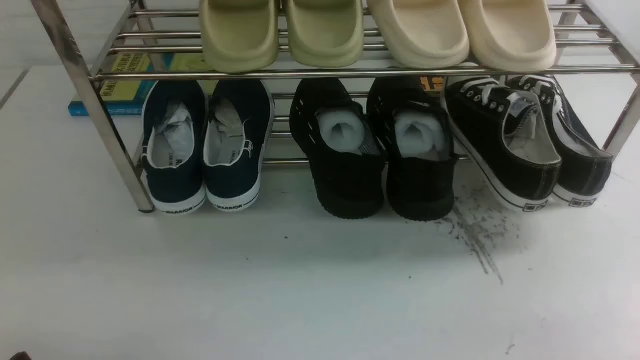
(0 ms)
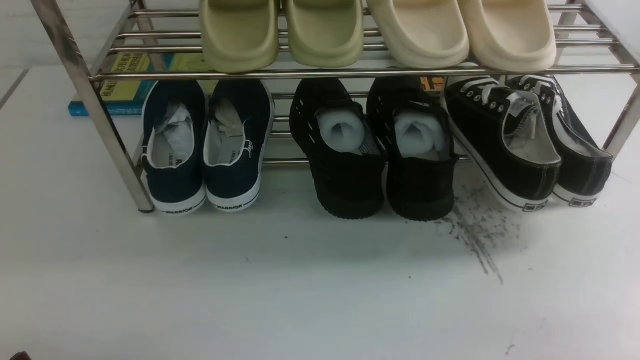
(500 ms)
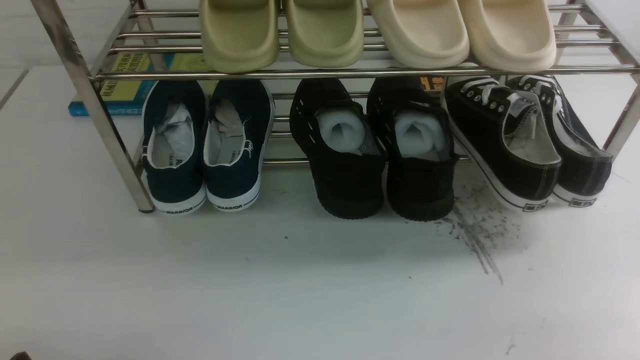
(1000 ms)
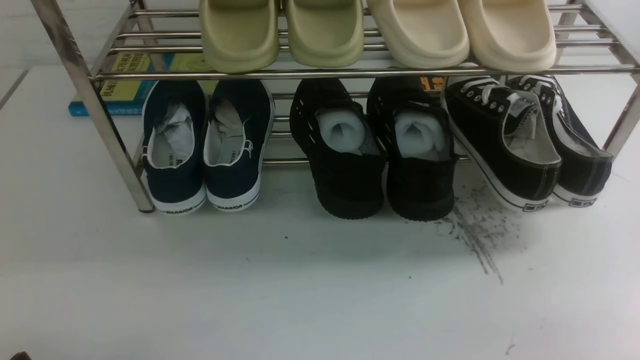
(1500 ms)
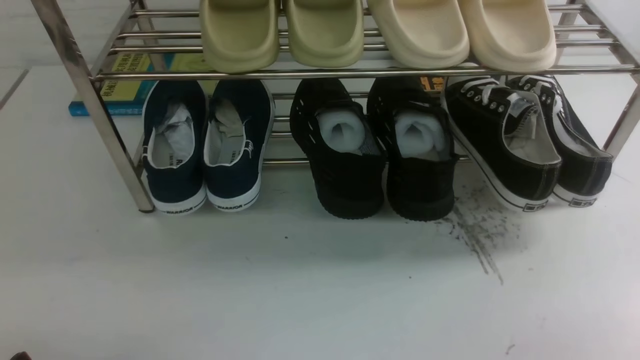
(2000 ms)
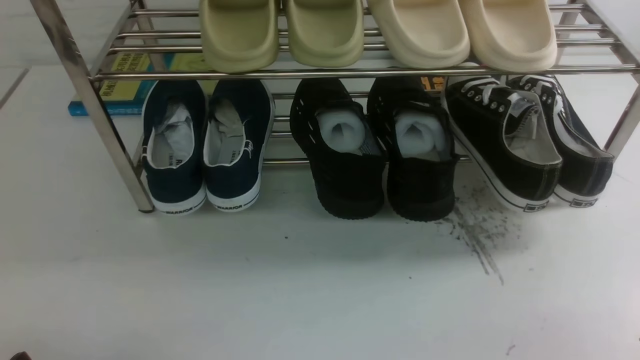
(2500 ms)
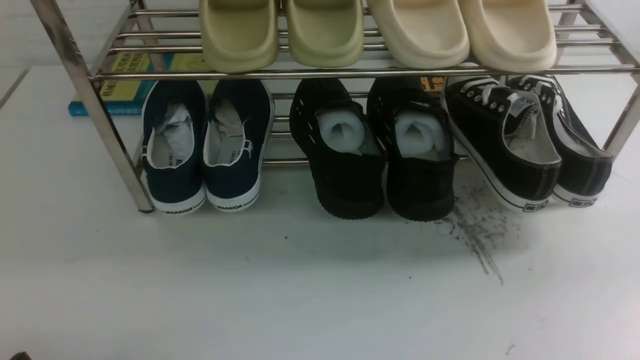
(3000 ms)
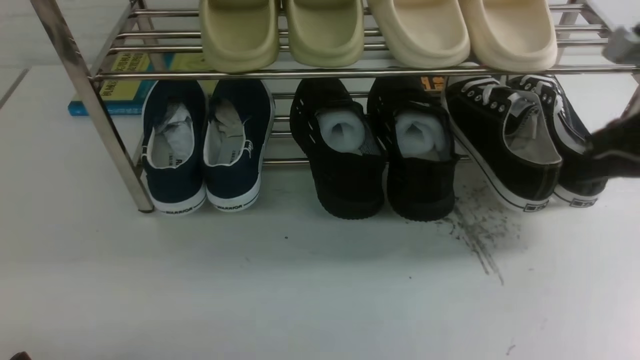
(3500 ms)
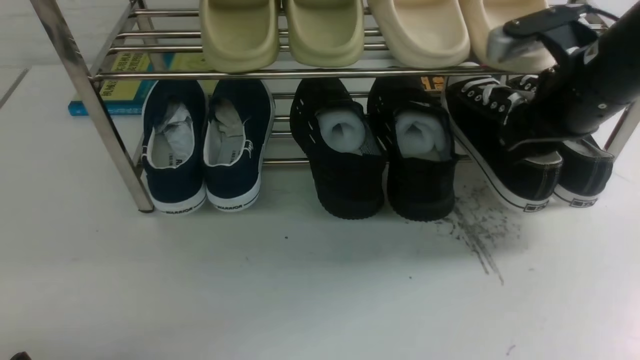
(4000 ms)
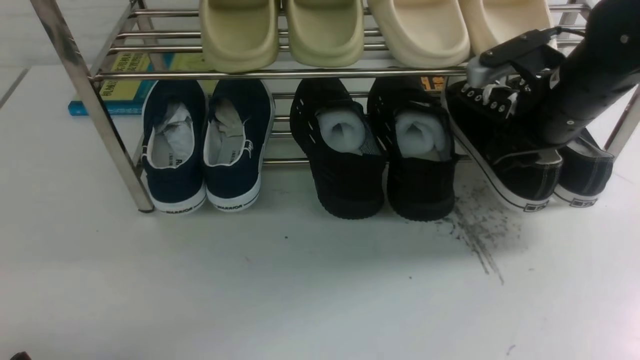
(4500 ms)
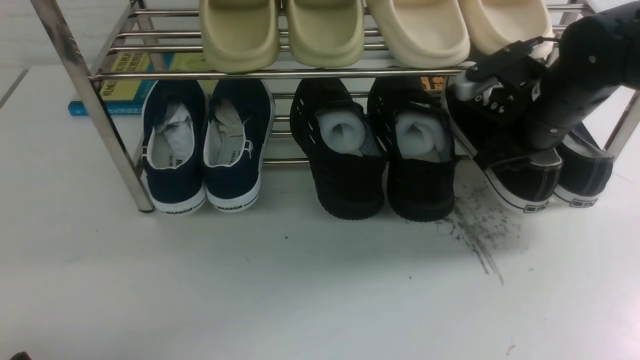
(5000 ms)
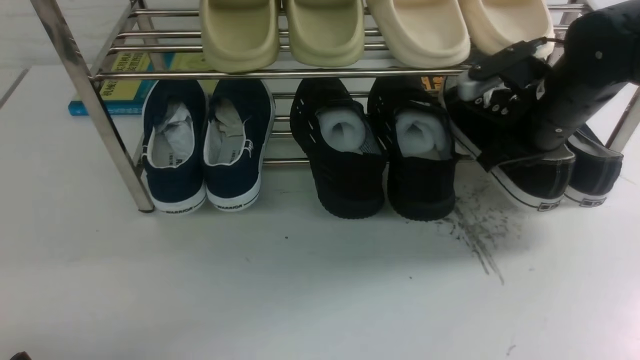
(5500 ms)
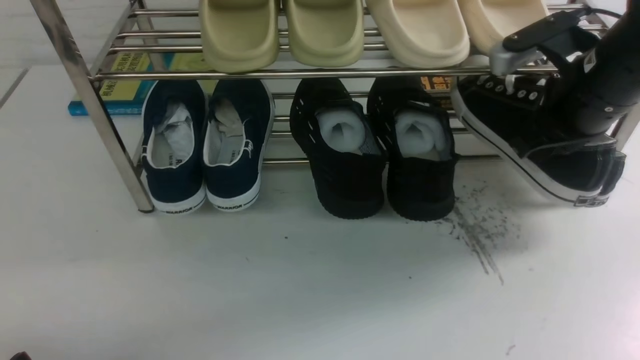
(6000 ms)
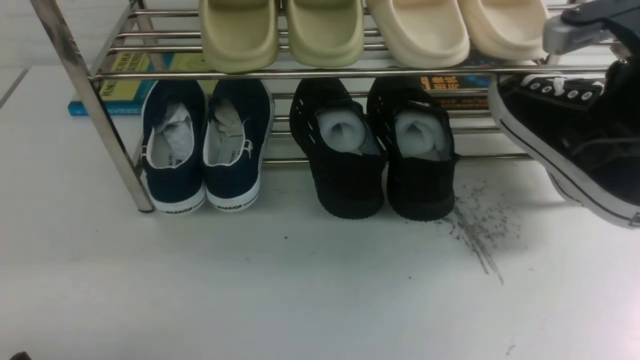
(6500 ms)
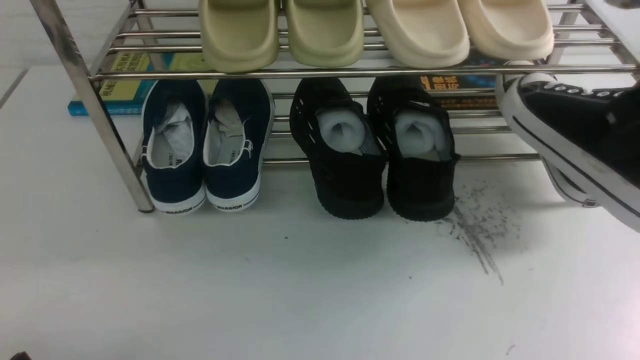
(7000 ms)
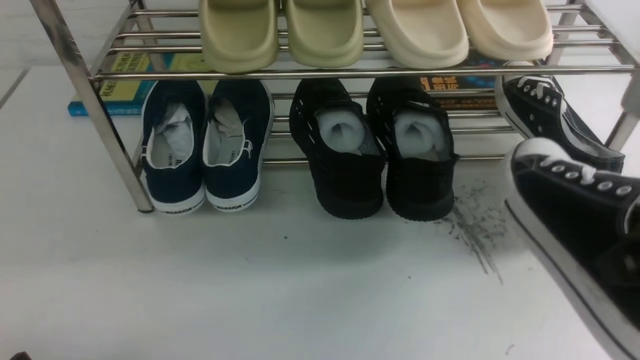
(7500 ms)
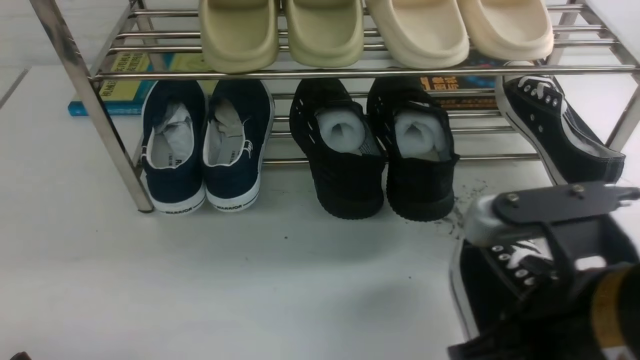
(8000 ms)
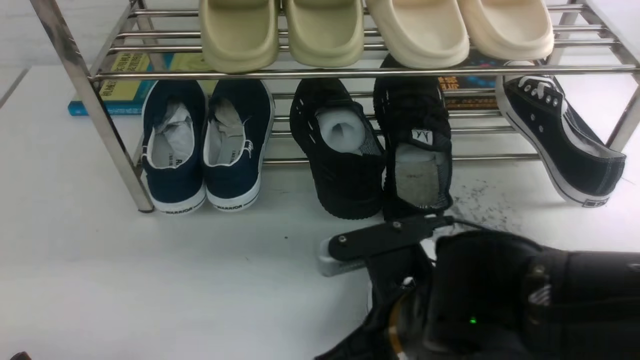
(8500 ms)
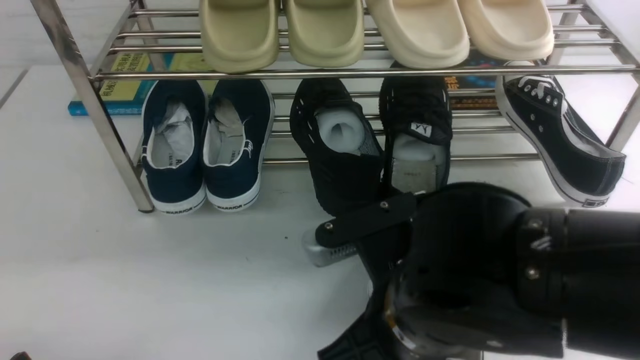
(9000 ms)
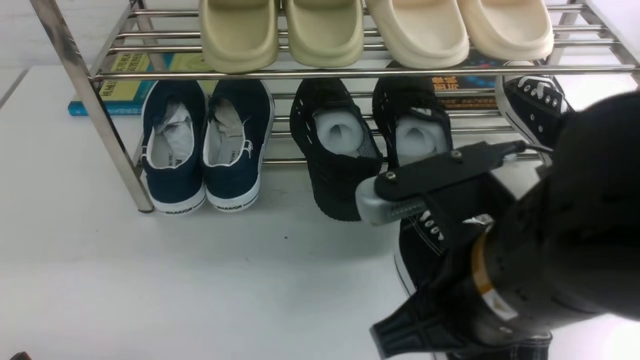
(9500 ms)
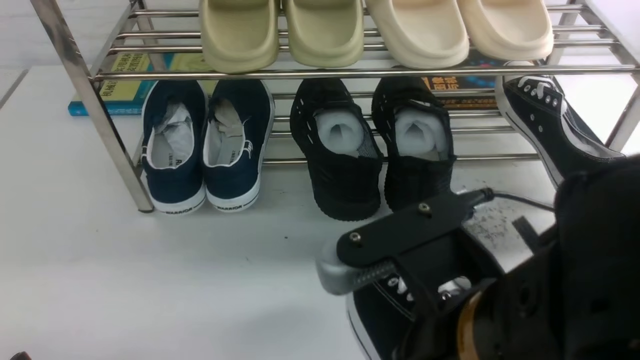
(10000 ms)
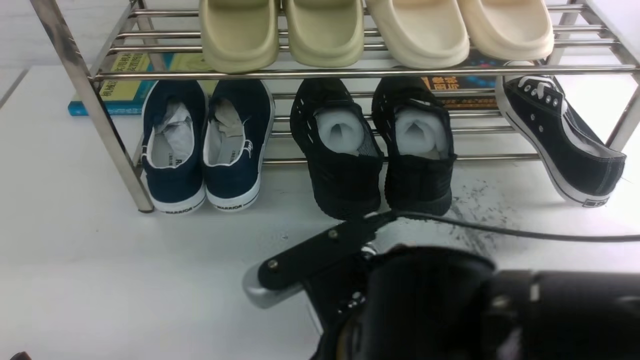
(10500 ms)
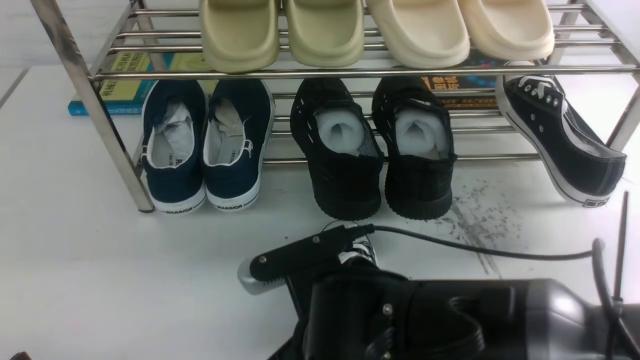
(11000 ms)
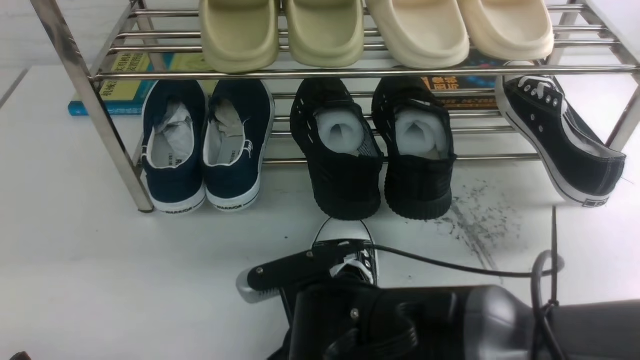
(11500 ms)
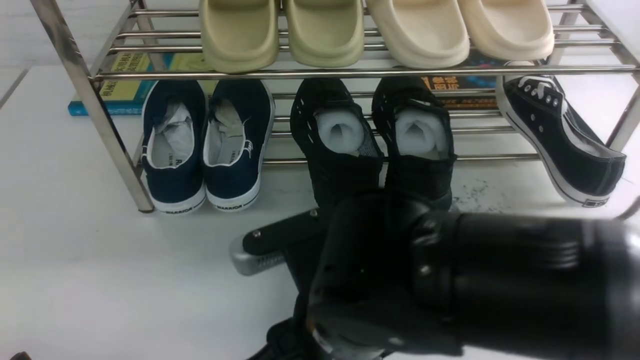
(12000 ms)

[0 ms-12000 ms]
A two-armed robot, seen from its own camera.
Step, 0 ms to 6000 ms: use the right arm to clamp a shoe on the right side of the shoe rack.
2000 ms to 4000 ms: The right gripper travels forward and upward by approximately 30 cm, and closes, then opens again.
4000 ms to 6000 ms: The right gripper closes up.
6000 ms to 8000 ms: The right gripper goes approximately 25 cm backward and to the left.
8000 ms to 10000 ms: The right gripper heads to the left, covering approximately 5 cm.
10000 ms to 12000 ms: The right gripper goes about 10 cm to the left and downward, and opens up.

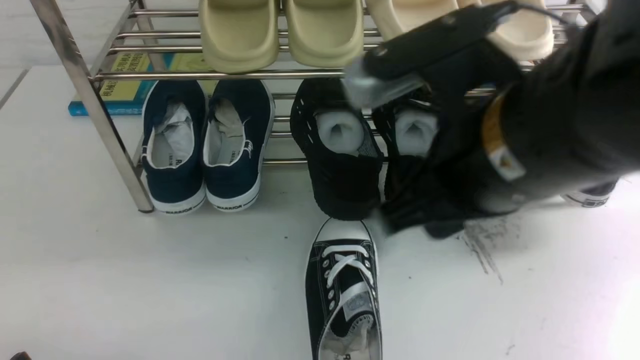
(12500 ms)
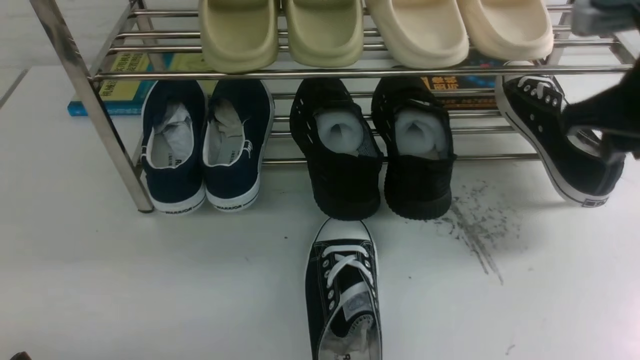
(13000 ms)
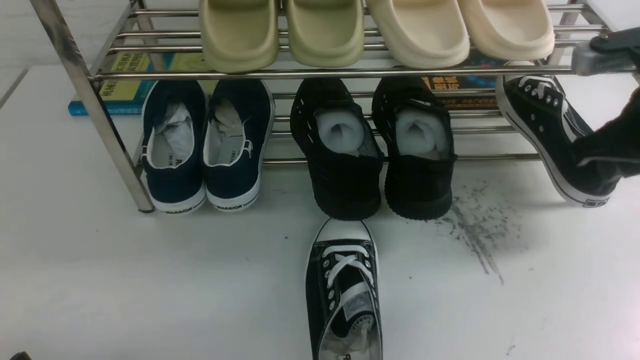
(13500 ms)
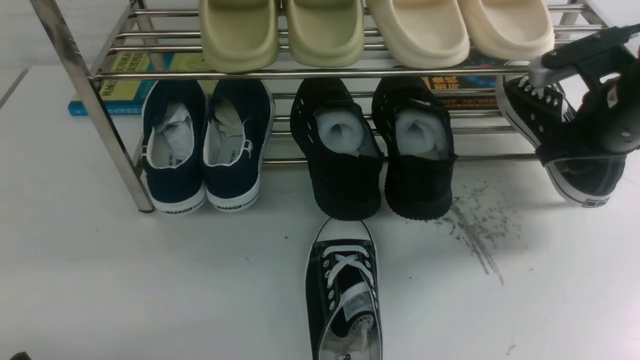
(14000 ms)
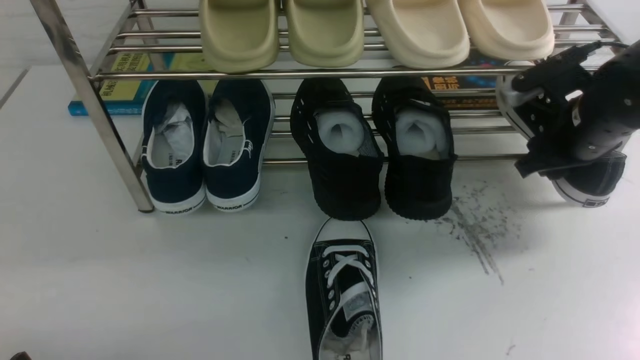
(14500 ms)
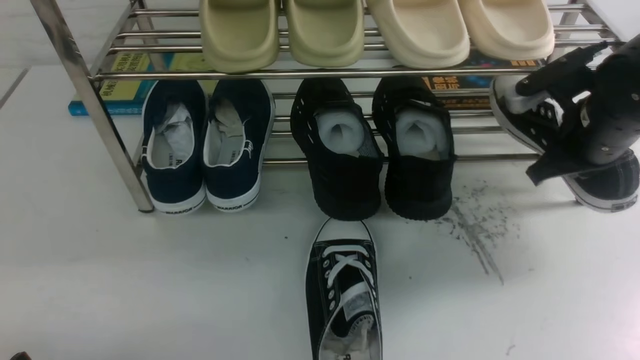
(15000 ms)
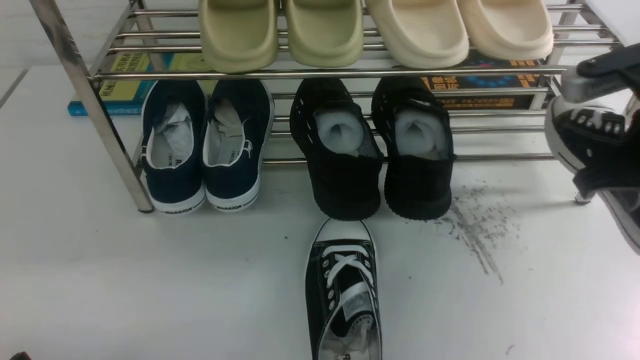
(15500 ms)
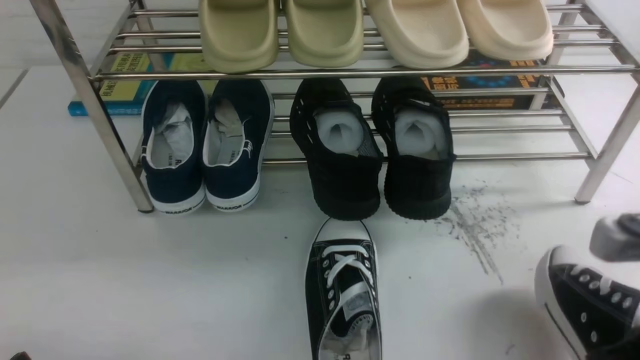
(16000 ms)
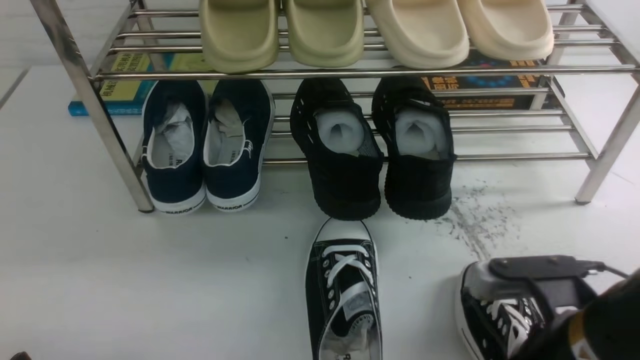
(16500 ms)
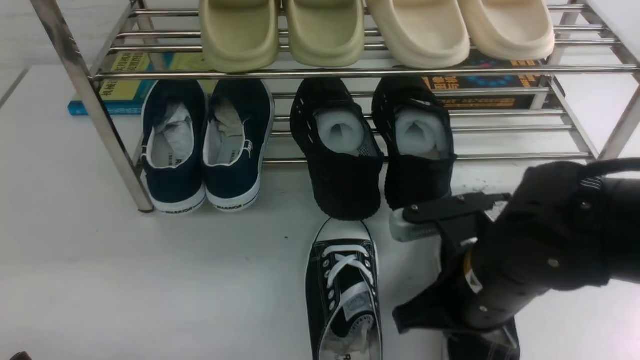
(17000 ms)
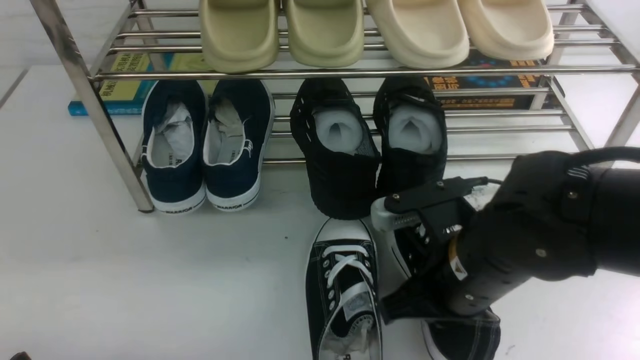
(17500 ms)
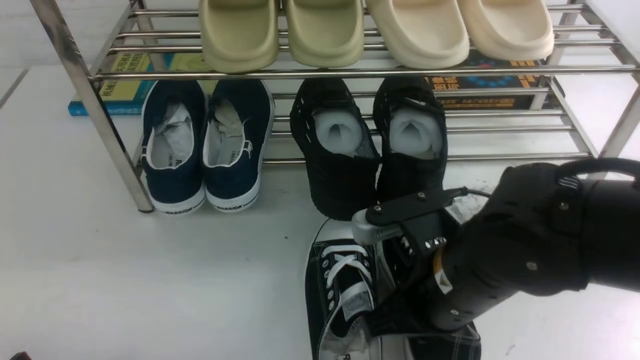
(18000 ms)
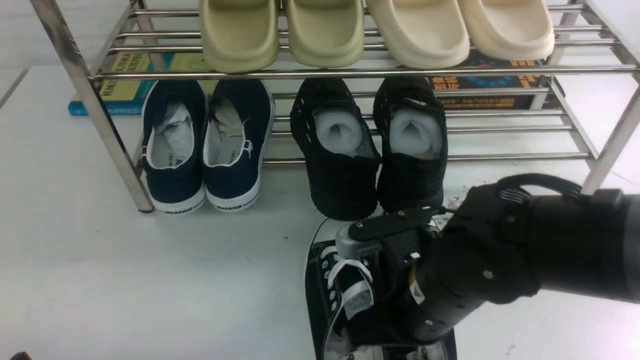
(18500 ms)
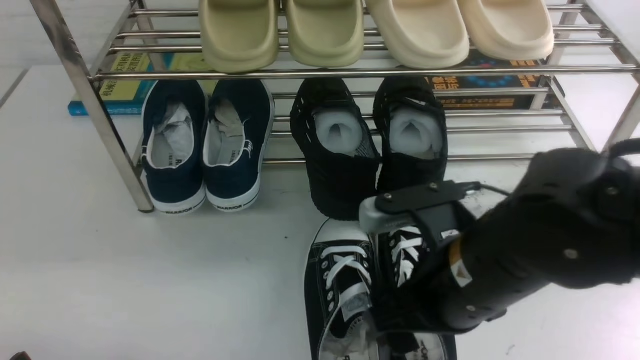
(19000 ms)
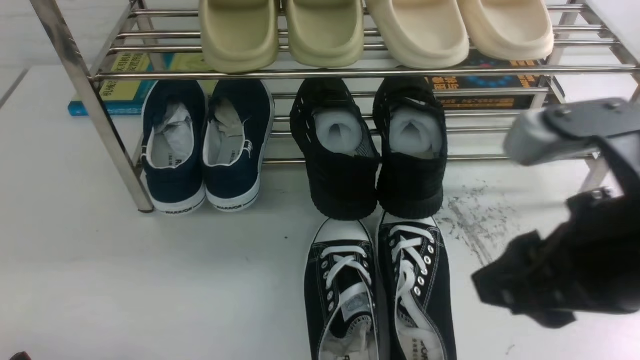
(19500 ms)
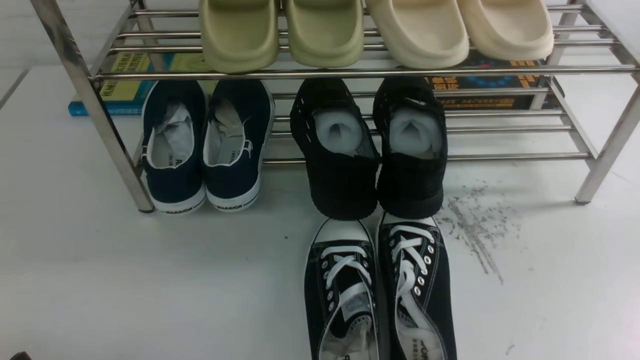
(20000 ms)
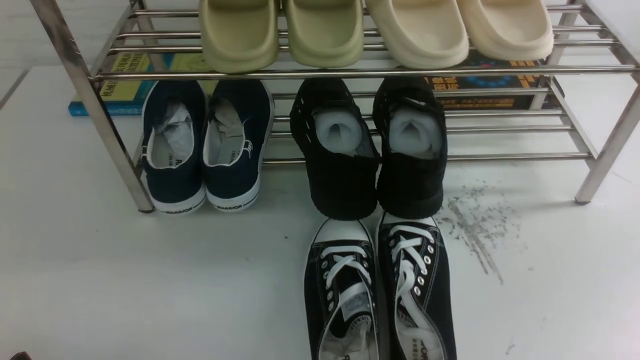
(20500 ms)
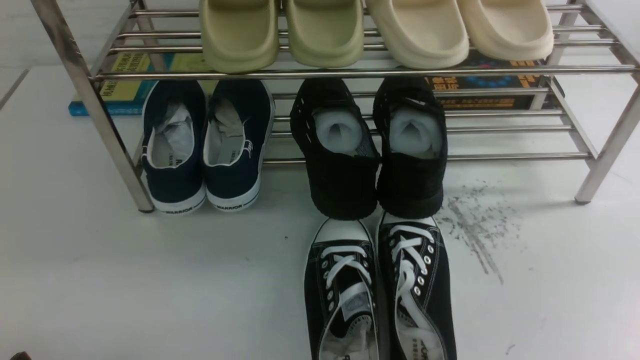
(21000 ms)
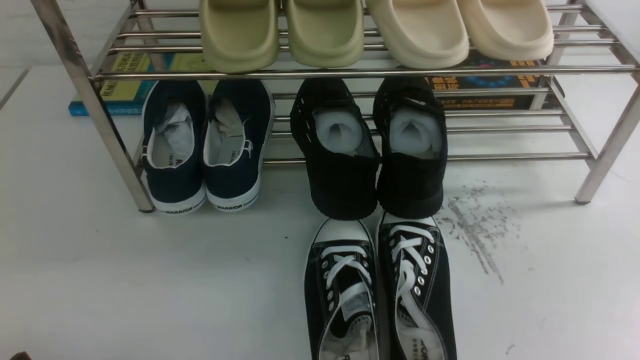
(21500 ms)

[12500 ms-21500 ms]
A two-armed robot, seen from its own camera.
Step, 12500 ms to 15000 ms: use the right arm to clamp a shoe on the right side of the shoe rack.
Step, 15500 ms to 19000 ms: use the right arm to take out the clamped shoe from the shoe rack and put it down.
12500 ms to 14500 ms: The right gripper goes approximately 25 cm forward, to the right and downward.
14500 ms to 17000 ms: The right gripper travels backward and to the left by about 20 cm, and closes.
17000 ms to 19500 ms: The right gripper shifts approximately 15 cm upward, backward and to the right, and opens its fingers.
19500 ms to 21500 ms: The right gripper shifts roughly 15 cm to the right and backward, and closes up.
